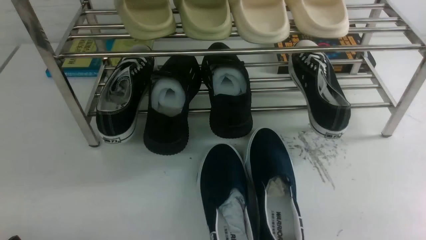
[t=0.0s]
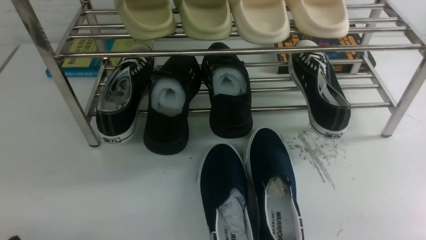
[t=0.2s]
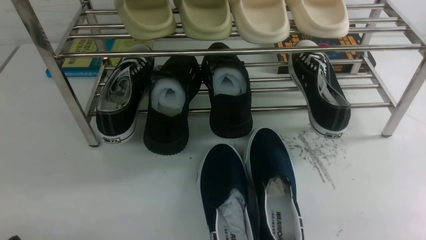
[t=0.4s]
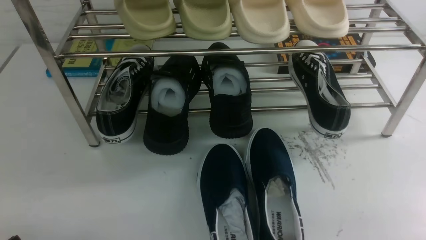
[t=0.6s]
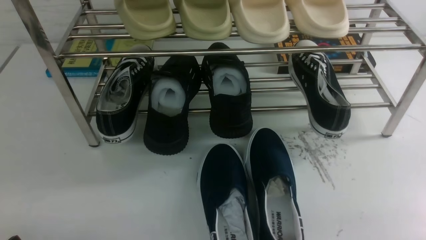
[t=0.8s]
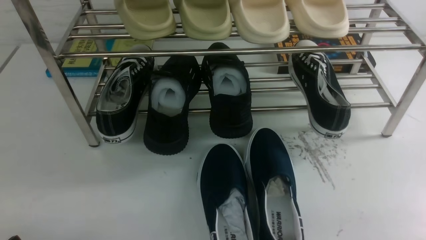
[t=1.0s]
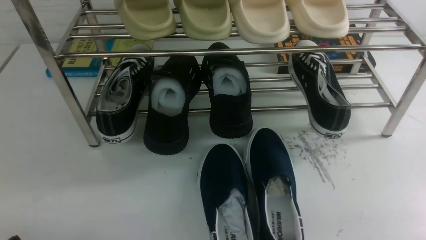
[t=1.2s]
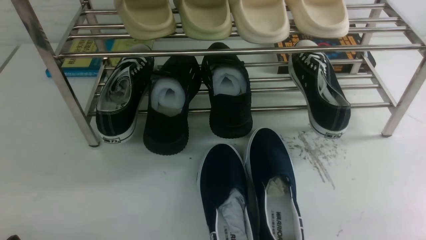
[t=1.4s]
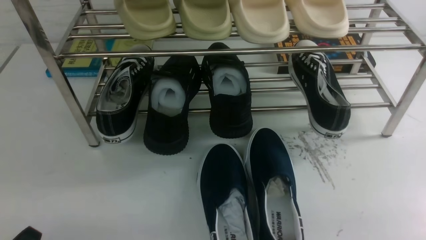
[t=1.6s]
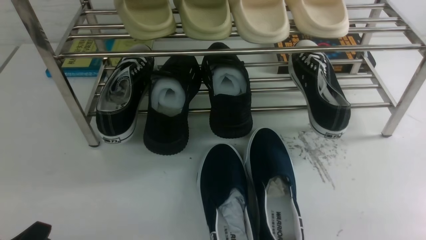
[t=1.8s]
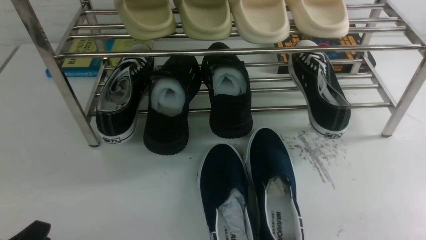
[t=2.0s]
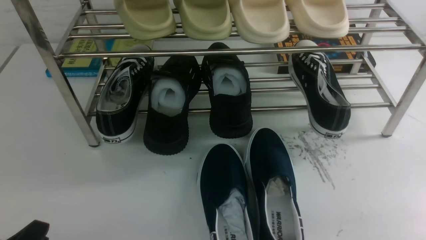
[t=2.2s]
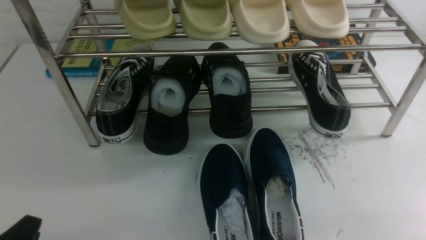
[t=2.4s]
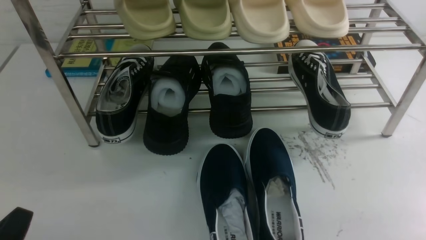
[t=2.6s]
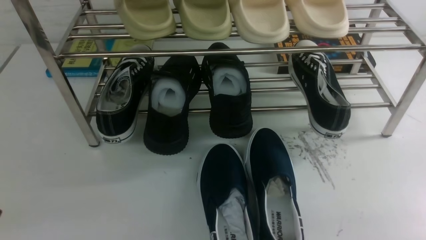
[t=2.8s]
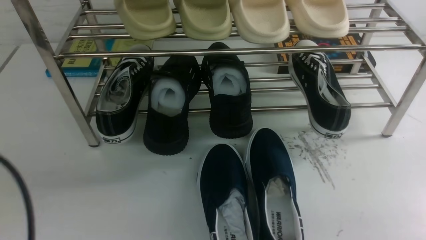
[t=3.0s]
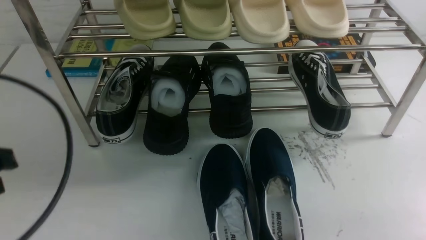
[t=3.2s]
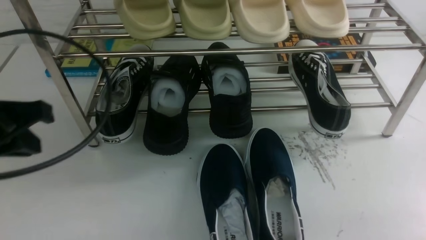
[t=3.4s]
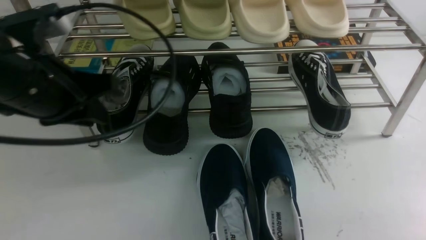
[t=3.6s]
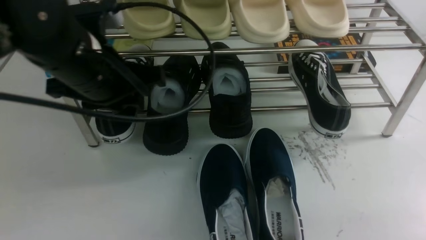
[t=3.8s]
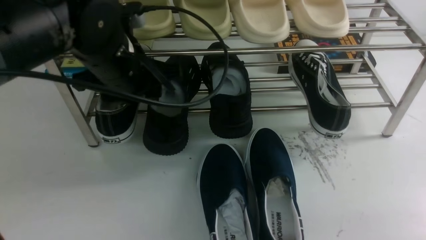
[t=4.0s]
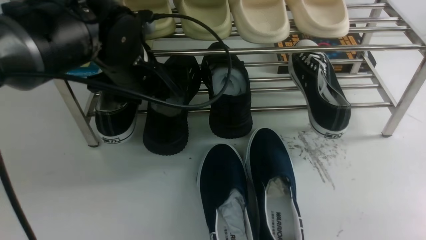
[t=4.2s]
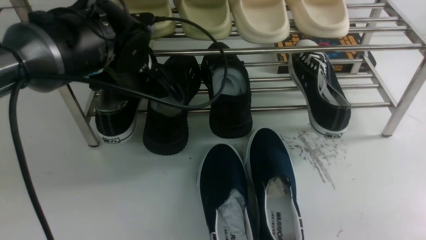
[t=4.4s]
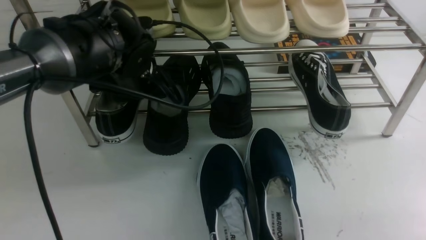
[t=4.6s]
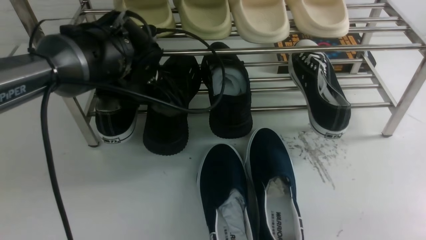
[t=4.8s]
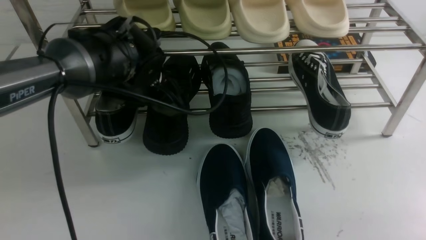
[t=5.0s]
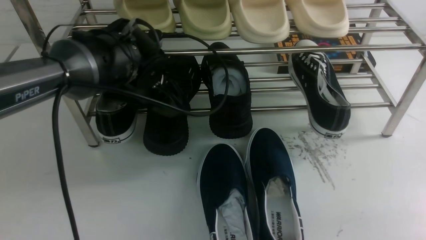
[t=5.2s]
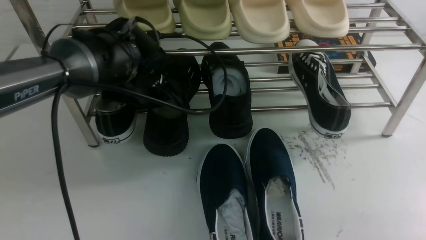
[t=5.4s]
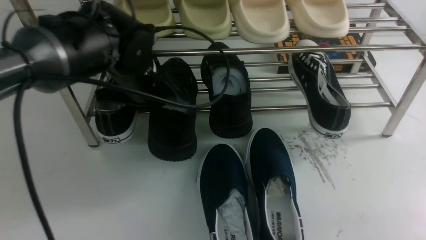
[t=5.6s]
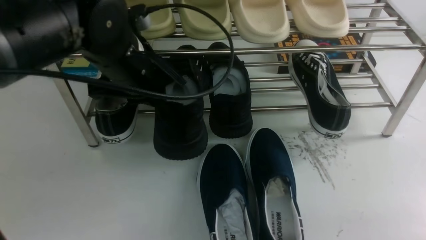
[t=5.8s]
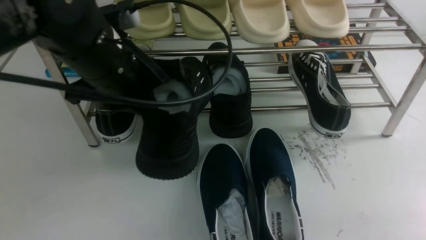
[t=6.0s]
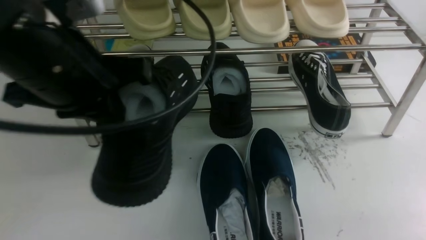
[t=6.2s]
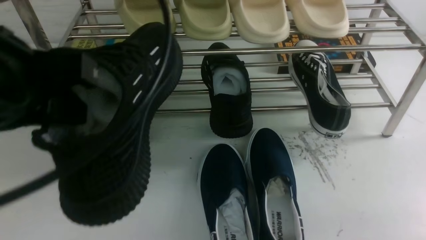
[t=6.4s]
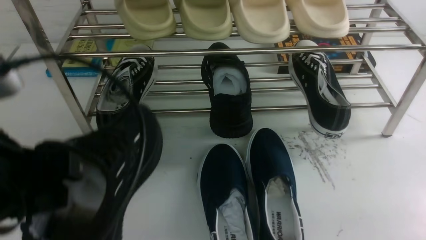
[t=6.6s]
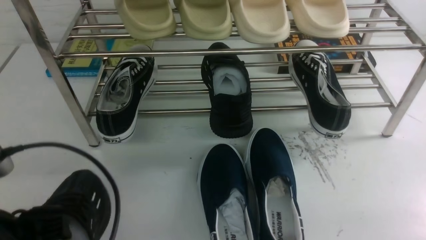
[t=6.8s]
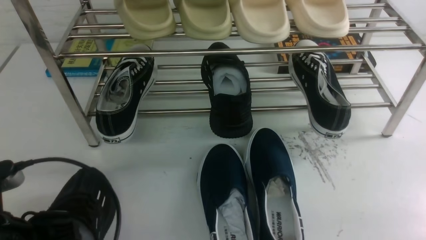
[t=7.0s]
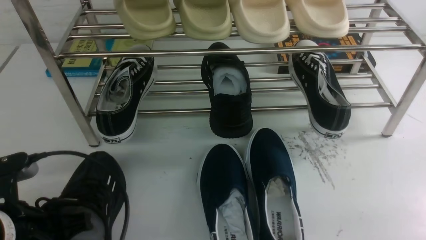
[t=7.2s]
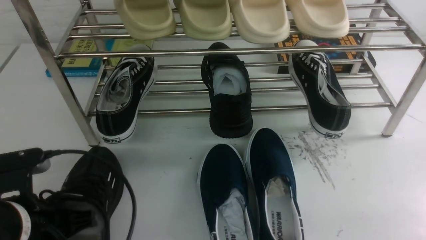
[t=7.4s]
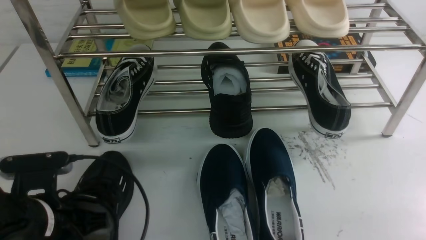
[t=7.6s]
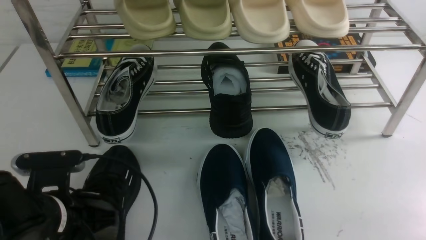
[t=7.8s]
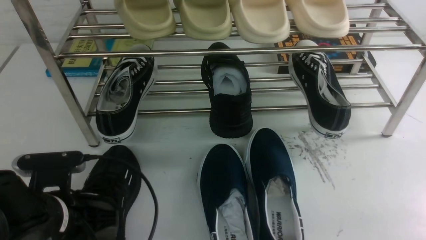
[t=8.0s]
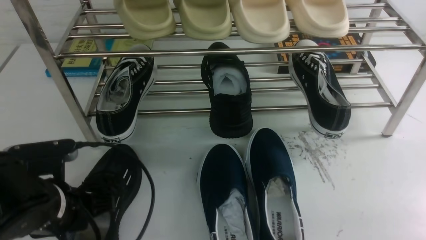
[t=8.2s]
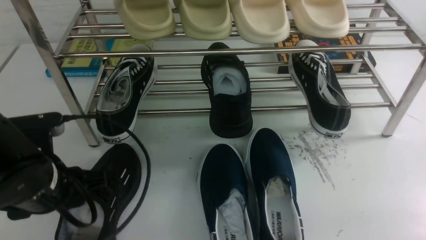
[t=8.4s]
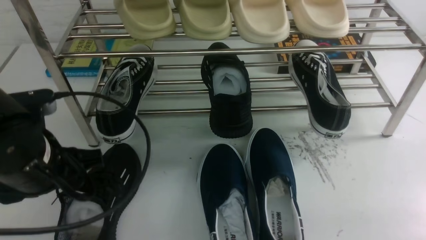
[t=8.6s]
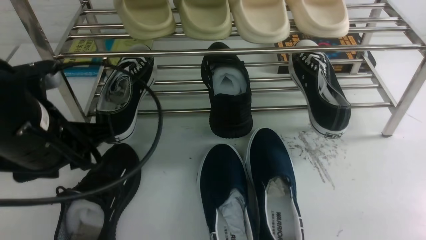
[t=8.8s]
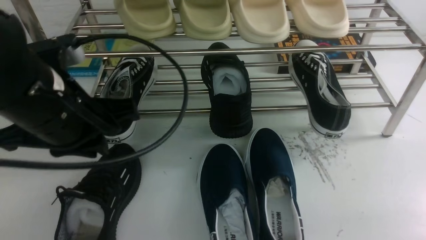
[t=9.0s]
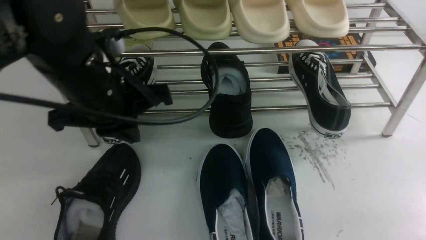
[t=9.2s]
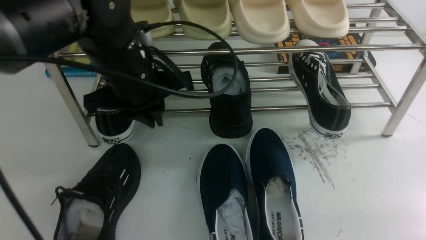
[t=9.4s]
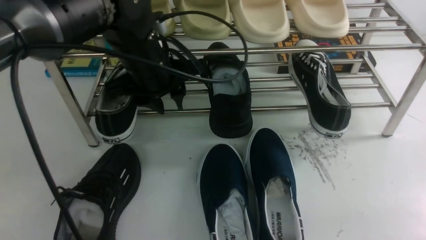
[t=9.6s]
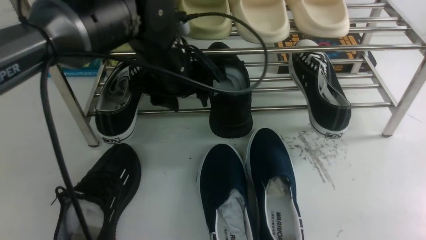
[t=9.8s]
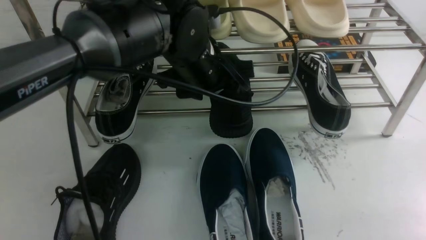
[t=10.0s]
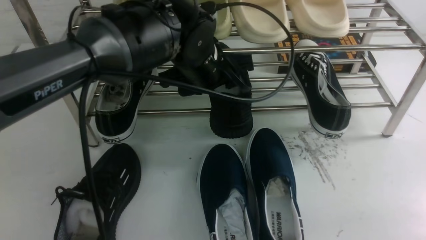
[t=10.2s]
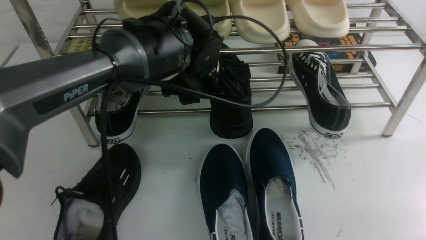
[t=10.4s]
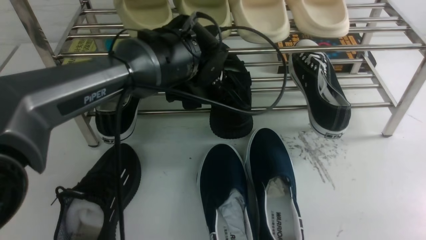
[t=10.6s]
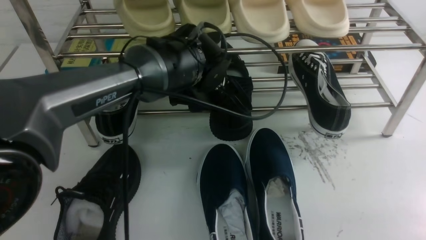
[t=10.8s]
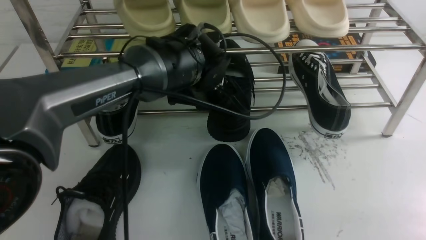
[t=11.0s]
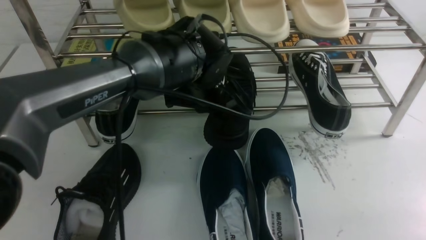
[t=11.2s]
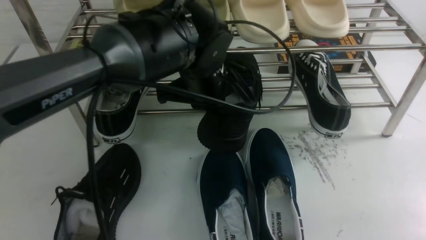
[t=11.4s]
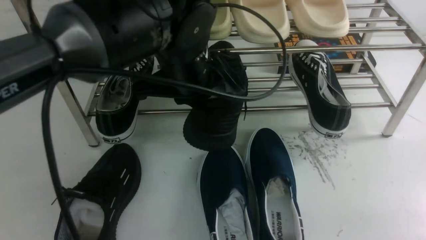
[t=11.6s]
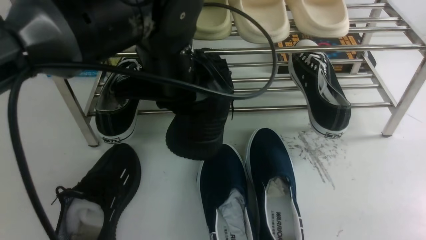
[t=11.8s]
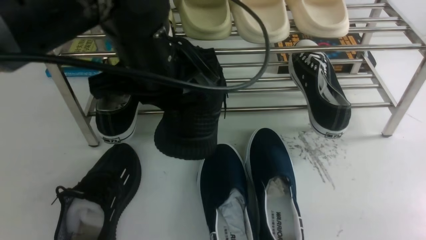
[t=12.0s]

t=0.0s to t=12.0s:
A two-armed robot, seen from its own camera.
Step, t=0.0s to t=5.8s: use the left arm to clamp a shoe on the left side of the shoe rack.
Step, t=6.0s to t=8.4s: Use your left arm to remove the clamped shoe from the shoe rack and put it down.
Step, t=8.6s to t=11.4s: use the left arm to clamp a shoe in the middle of the shoe rack.
t=1.6s to t=3.0s: The left gripper shifts some 15 cm upward, and closes its fingers.
t=3.0s to t=4.4s: The left gripper goes roughly 30 cm forward and to the right, and opens up.
t=4.4s to t=6.0s: The left gripper moves backward and upward, some 10 cm, and closes up.
t=6.0s to t=7.6s: The left gripper heads downward, backward and to the left, covering roughly 20 cm.
t=7.6s to t=9.0s: The left gripper goes approximately 15 cm upward and forward, and opens, then closes again.
t=9.0s to t=10.4s: The left gripper heads to the right, forward and downward, covering about 20 cm, and opens its fingers.
t=10.4s to t=12.0s: The left gripper shifts some 15 cm backward, upward and to the left, and closes up.

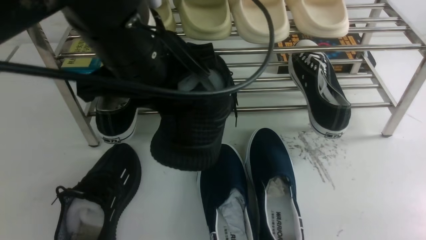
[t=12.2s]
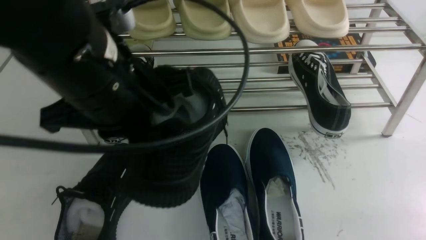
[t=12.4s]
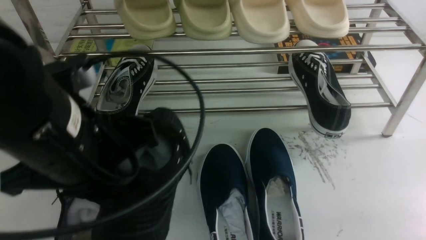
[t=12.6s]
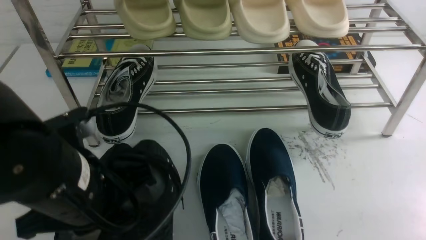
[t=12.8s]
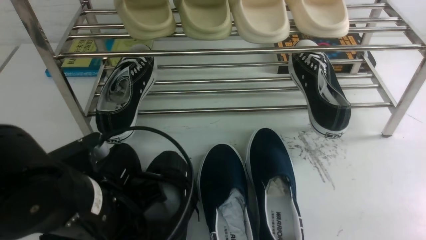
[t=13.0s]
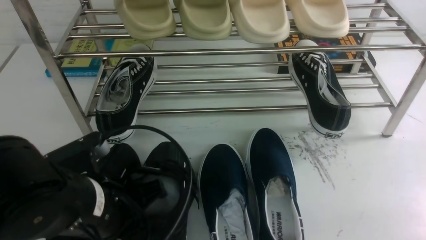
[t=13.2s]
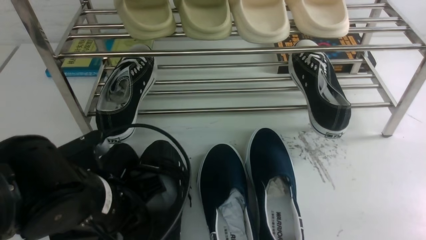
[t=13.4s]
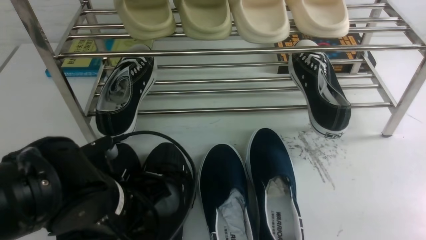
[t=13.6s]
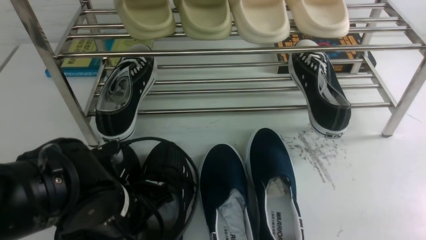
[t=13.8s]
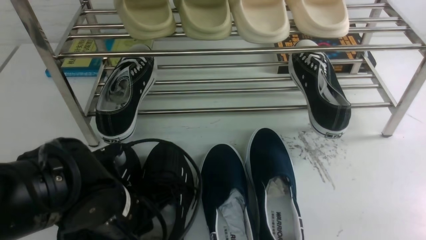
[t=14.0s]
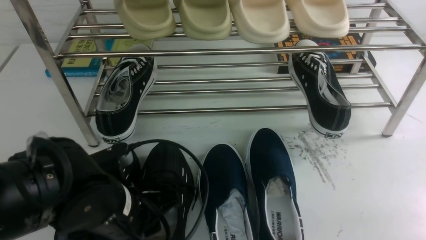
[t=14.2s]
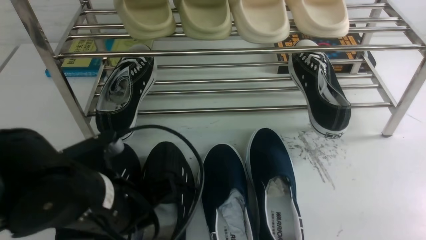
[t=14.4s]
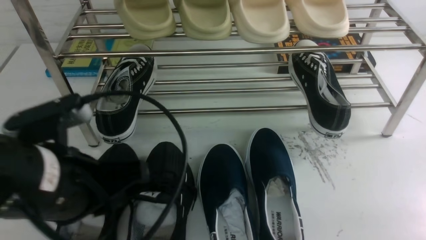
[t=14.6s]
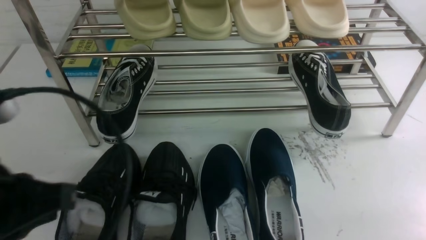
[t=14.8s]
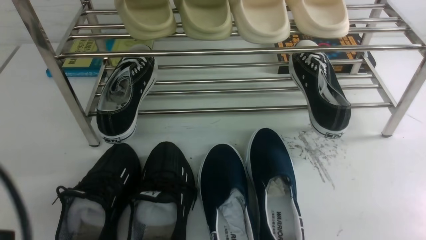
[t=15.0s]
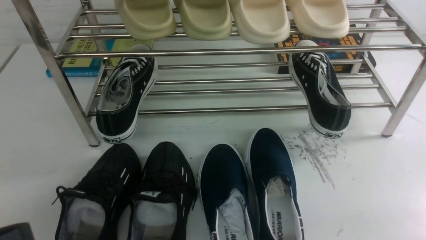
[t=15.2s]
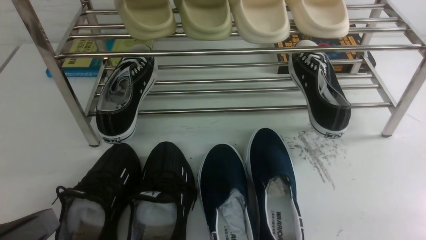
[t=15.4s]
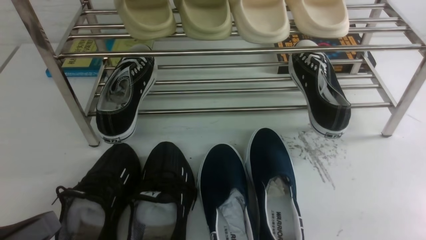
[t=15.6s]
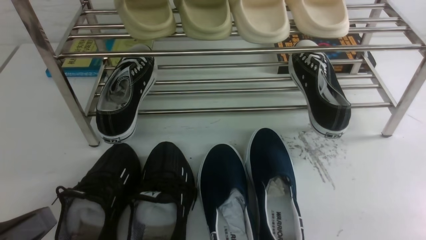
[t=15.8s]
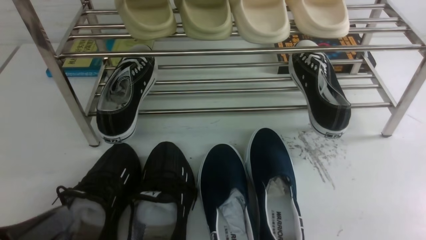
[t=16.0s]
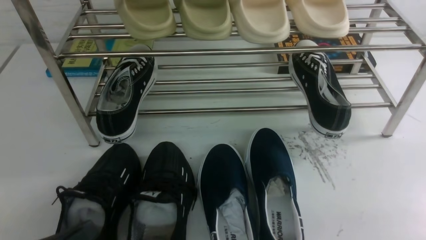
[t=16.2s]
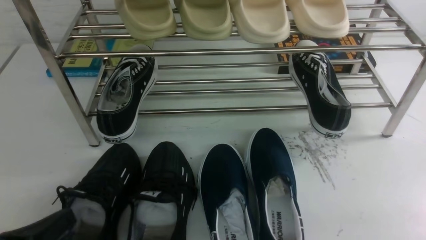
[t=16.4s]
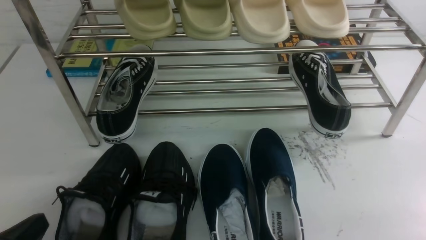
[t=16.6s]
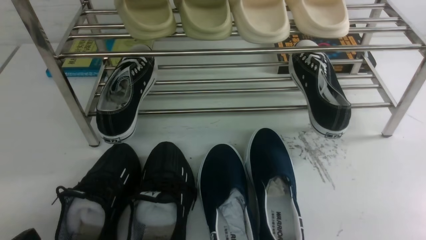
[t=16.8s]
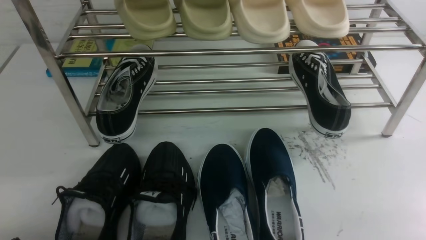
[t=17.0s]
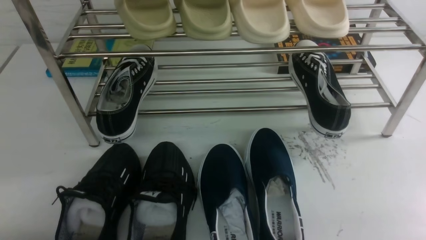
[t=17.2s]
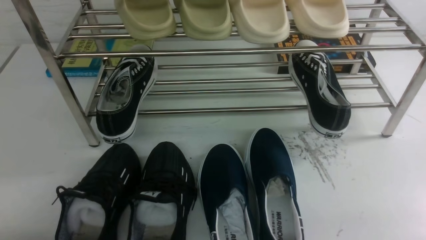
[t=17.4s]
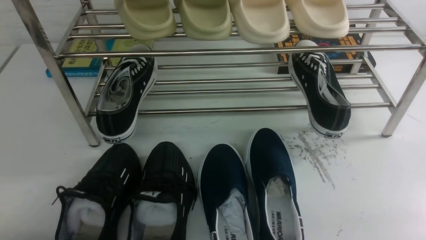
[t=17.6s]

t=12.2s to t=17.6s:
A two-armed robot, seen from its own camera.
Step, t=12.2s to t=14.6s: Use your left arm to remove the clamped shoe from the shoe rack and put it down.
t=12.2s to t=13.6s: The left gripper is displaced downward by roughly 15 cm.
t=13.6s to t=15.0s: The left gripper travels upward, backward and to the left by approximately 20 cm, and opens, then closes once more.
t=15.0s to t=16.2s: The left gripper moves downward, some 10 cm.
t=16.2s to t=17.6s: The left gripper goes about 5 cm downward.
